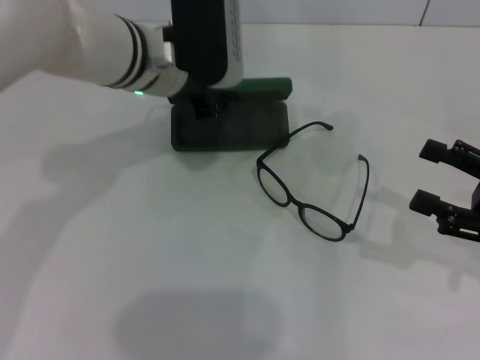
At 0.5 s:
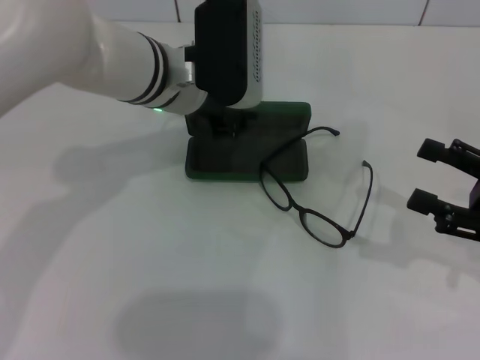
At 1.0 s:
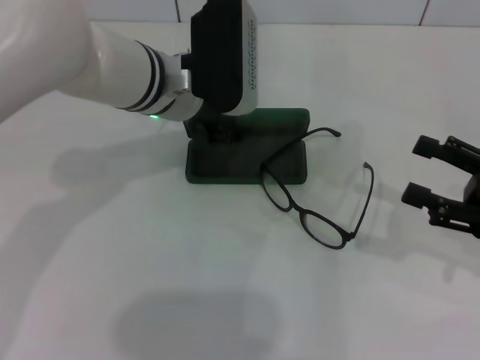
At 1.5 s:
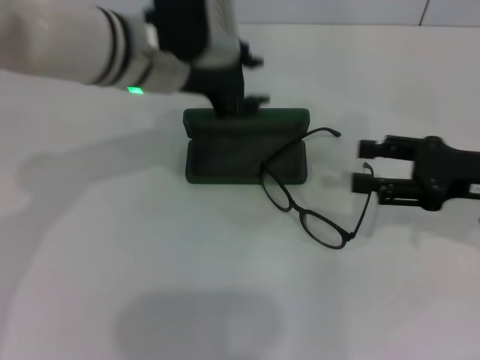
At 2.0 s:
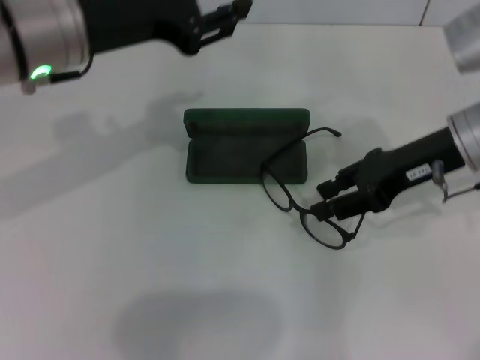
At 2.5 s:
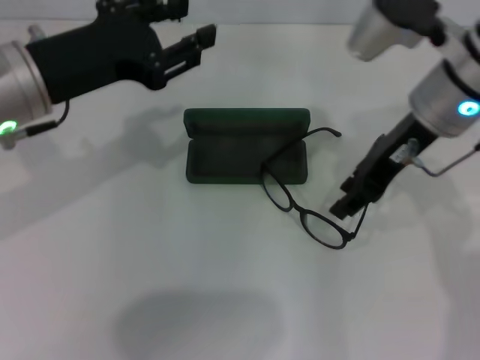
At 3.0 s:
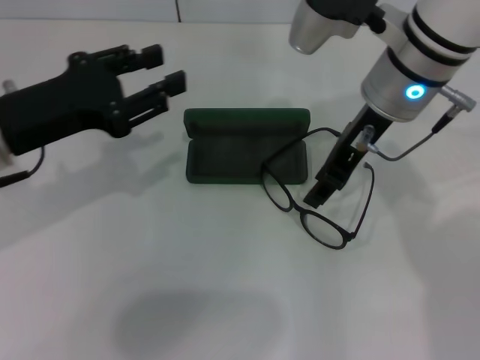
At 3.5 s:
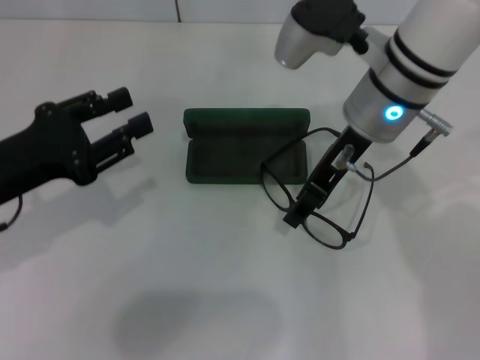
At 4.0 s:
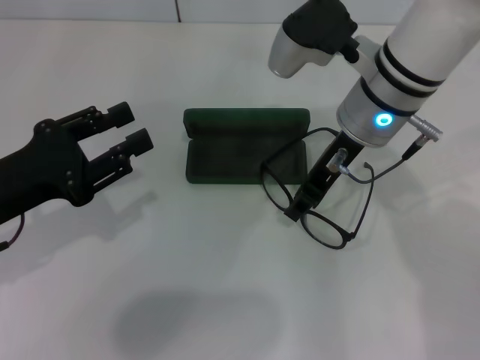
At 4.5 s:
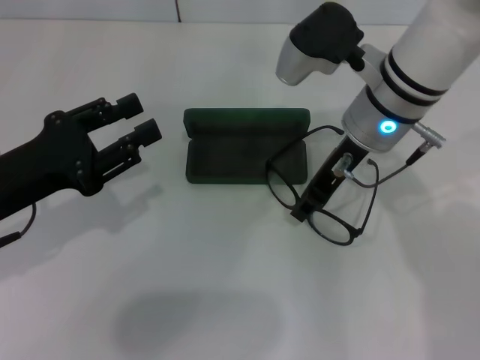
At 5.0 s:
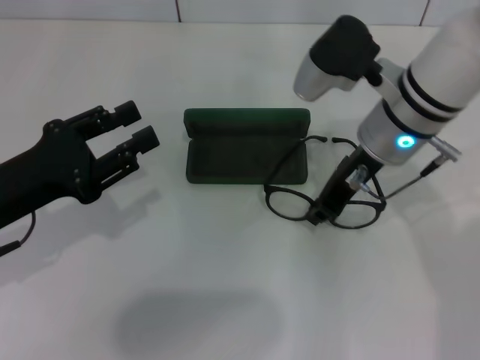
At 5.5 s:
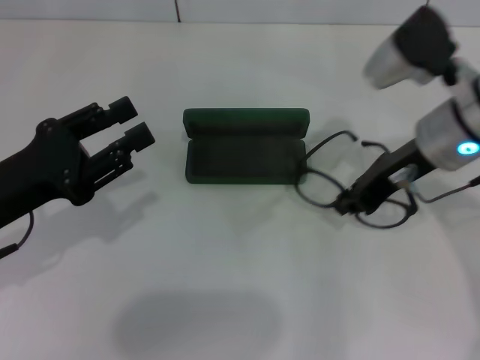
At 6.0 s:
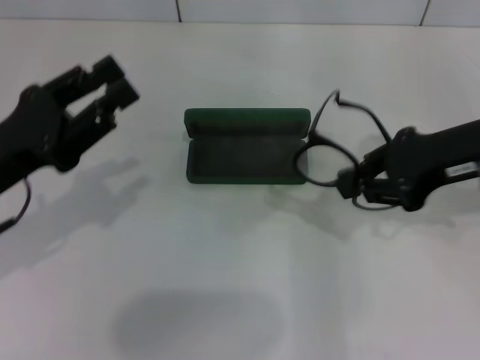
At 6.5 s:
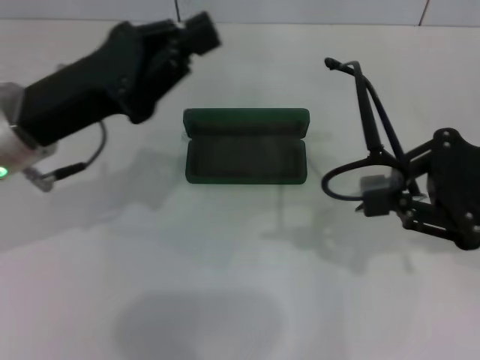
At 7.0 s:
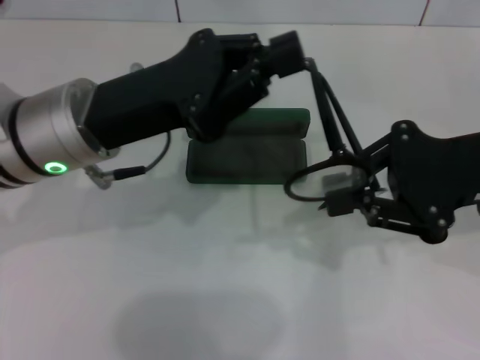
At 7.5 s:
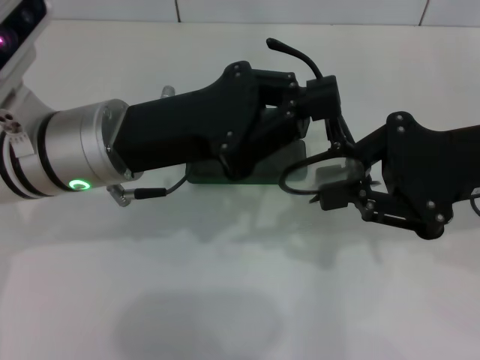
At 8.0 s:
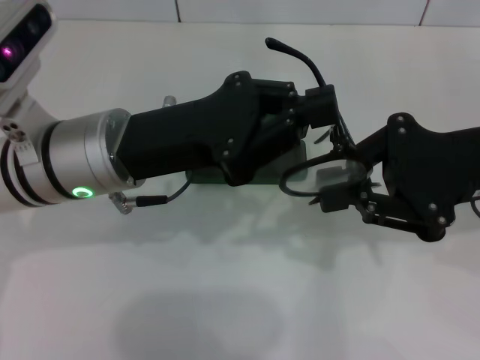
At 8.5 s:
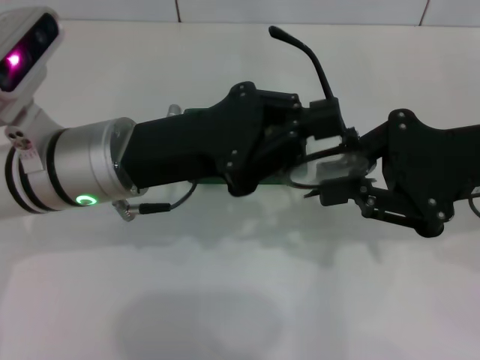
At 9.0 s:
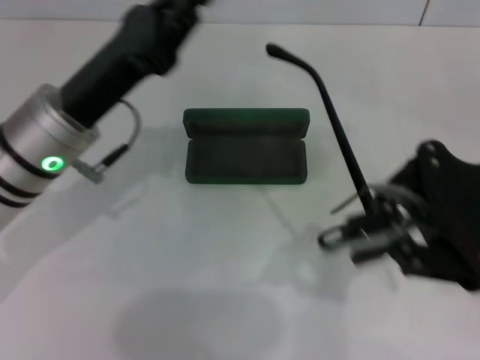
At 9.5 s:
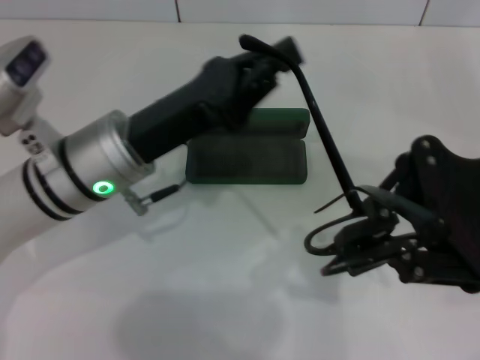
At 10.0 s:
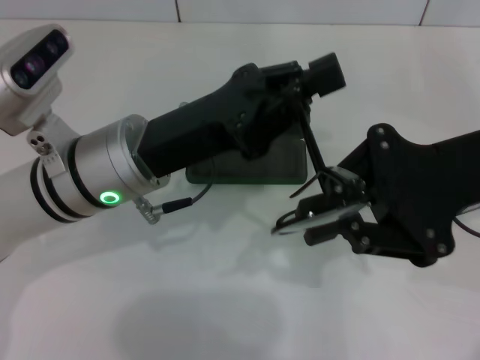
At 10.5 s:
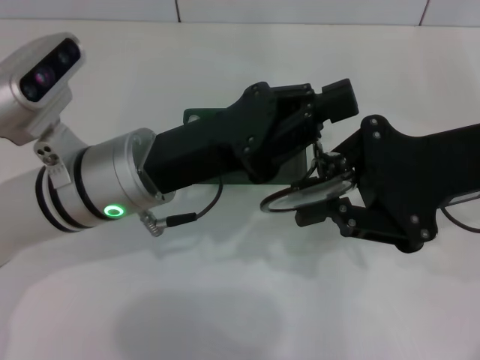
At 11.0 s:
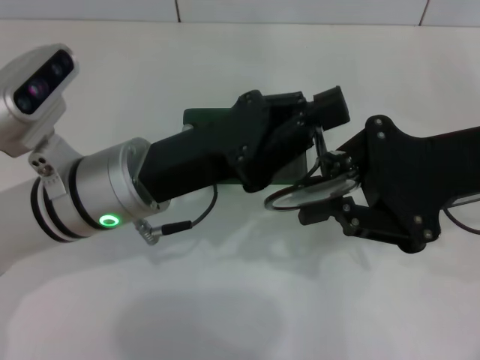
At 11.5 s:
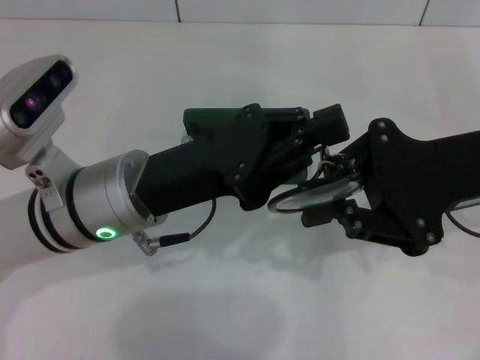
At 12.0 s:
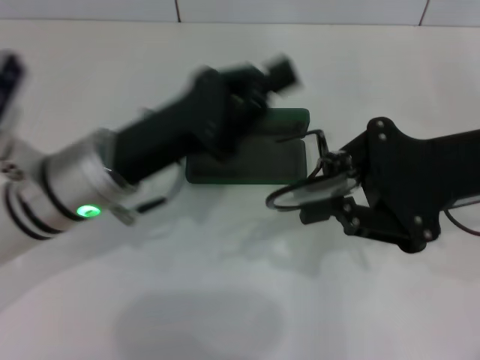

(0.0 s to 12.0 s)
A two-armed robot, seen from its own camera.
Step, 1.5 s - 4.5 s: Grab the eyeglass frame with your right hand.
Step, 5.0 s - 11.5 s: Fold the frame with your left hand.
0.0 s - 2.0 s: The left gripper travels to the left, backward and upward by approximately 10 cm, and opens up; the right gripper shifts some 20 cm to the left, forward and upward, and closes up.
2.0 s - 4.0 s: The right gripper goes roughly 10 cm to the left. The left gripper is displaced downward, to the left and backward by about 20 cm.
4.0 s - 6.0 s: The right gripper moves to the right and backward, approximately 15 cm.
6.0 s - 8.0 s: The left gripper travels to the right by some 10 cm, and closes.
10.0 s - 12.0 s: The grippers move only a little.

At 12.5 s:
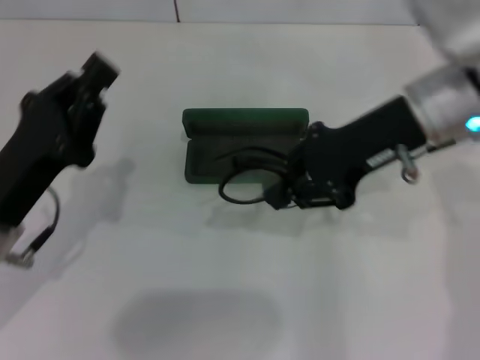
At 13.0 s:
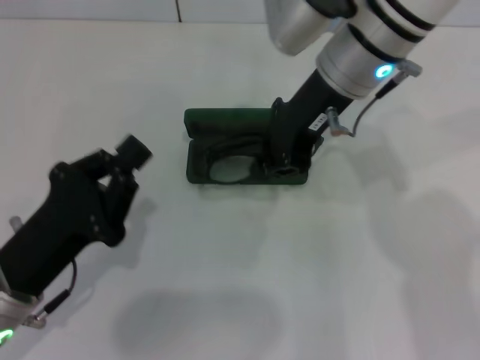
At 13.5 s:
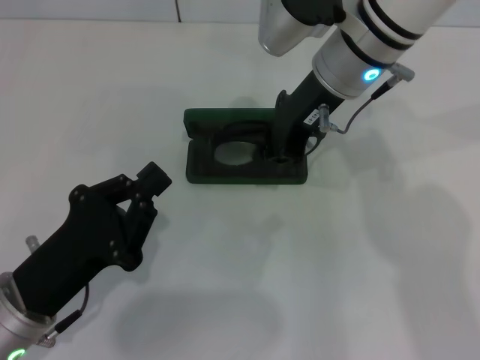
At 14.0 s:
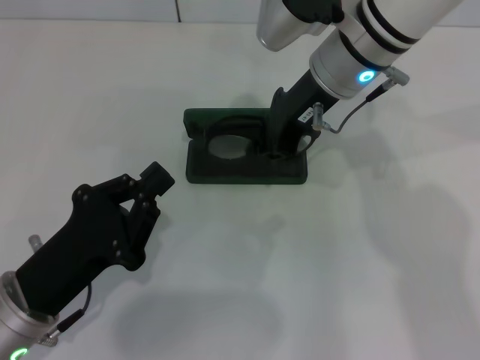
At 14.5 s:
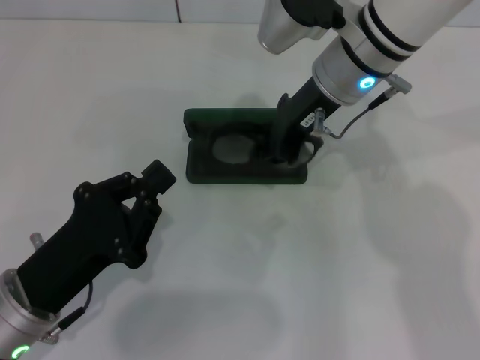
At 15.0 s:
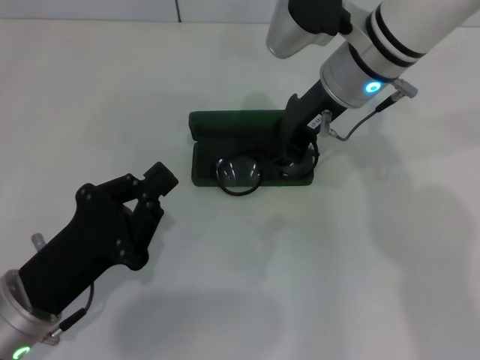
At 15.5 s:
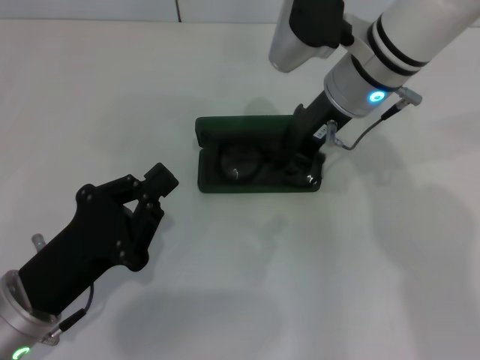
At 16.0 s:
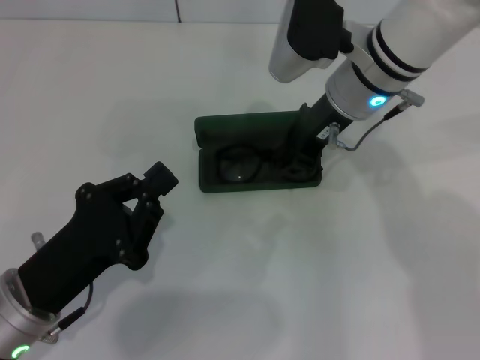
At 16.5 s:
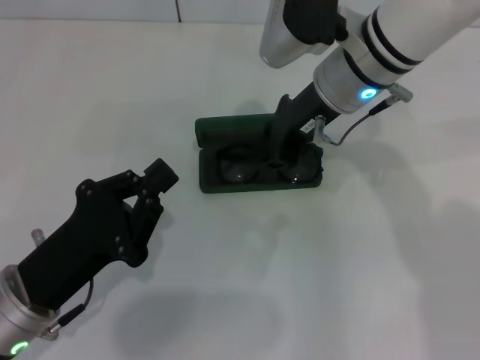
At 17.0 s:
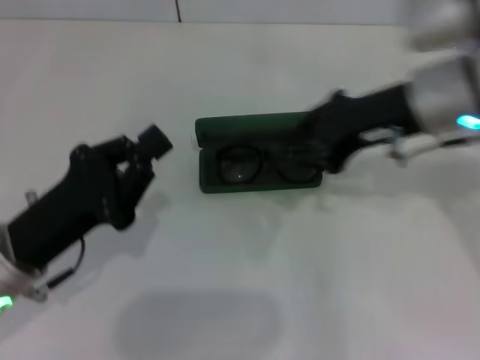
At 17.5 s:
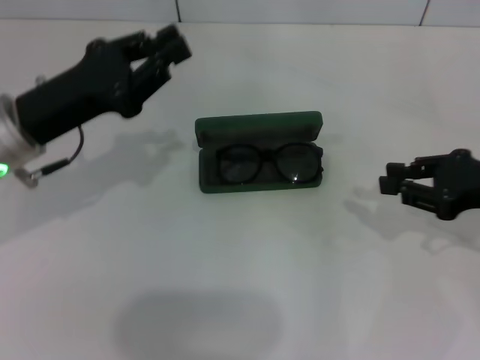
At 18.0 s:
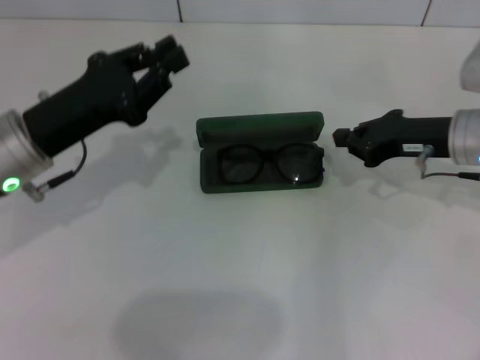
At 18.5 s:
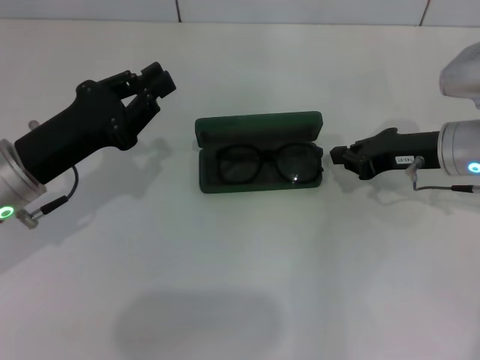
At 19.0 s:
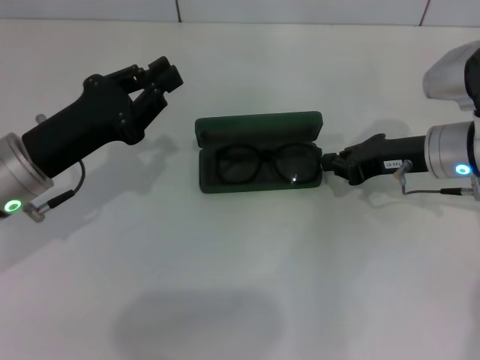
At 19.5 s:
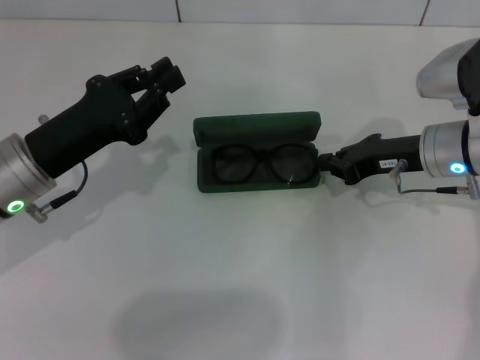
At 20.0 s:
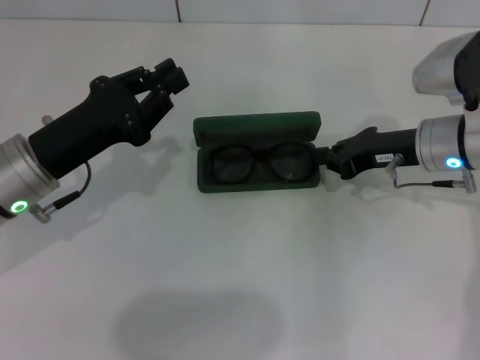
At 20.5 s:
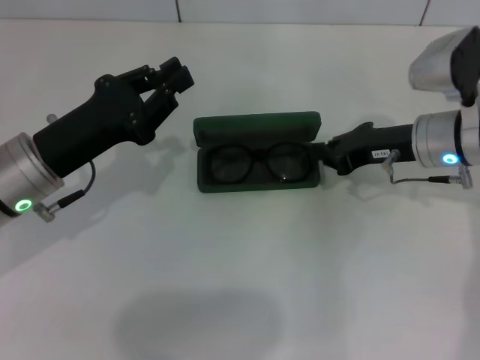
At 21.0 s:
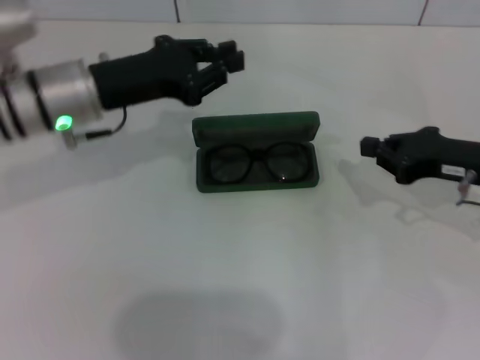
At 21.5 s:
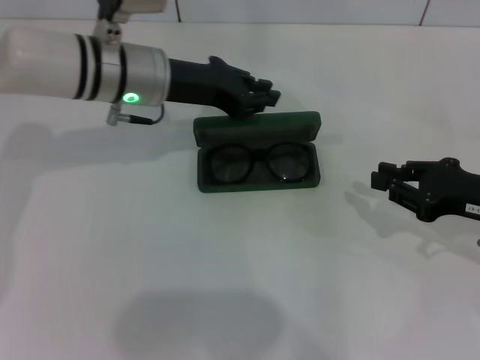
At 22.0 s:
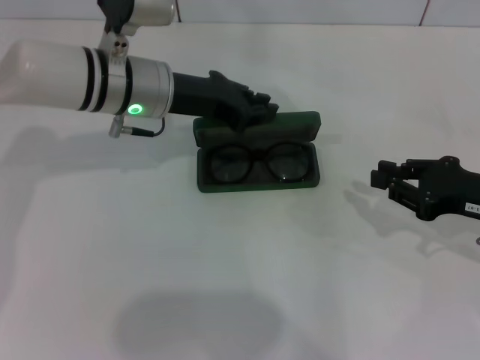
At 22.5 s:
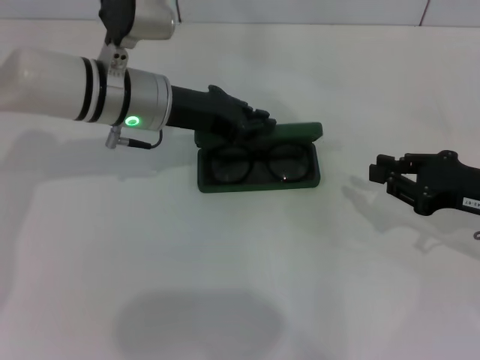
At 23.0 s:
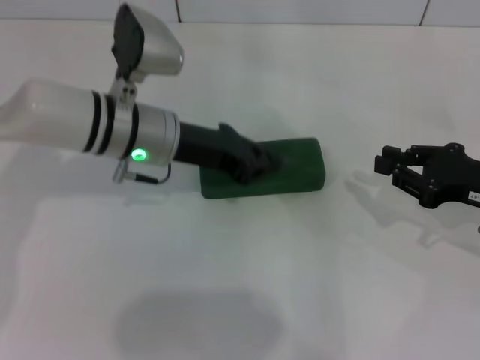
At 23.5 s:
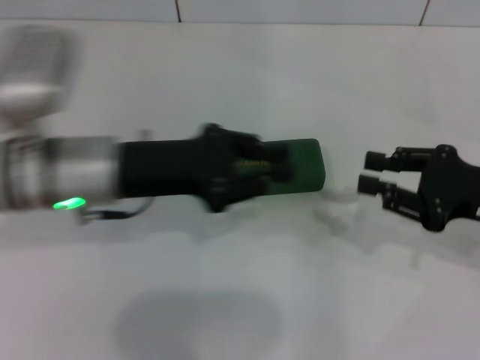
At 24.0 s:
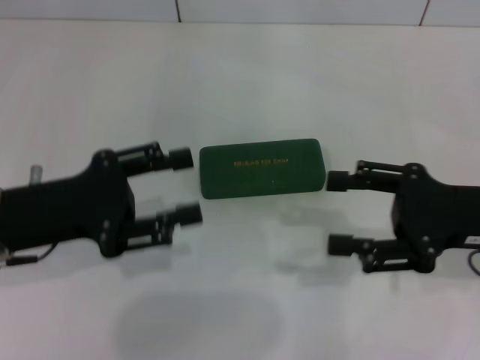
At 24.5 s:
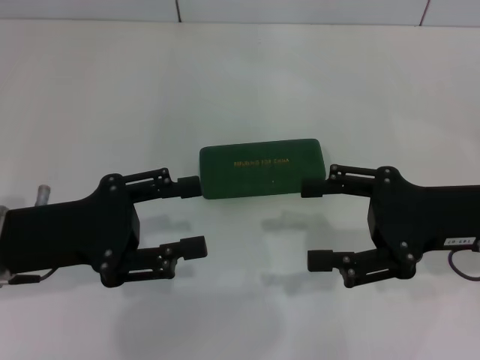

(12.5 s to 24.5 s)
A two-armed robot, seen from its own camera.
Step, 12.5 s - 20.5 s: Put the glasses into the case with your right hand.
Step, 21.0 s - 23.0 s: Close the glasses case with your left hand.
12.5 s - 14.5 s: The left gripper moves backward, approximately 5 cm. Meanwhile the right gripper goes approximately 10 cm to the left and forward.
14.5 s - 16.5 s: The grippers move only a little.
16.5 s - 18.5 s: The left gripper travels forward by some 10 cm. The right gripper travels to the right and downward by approximately 15 cm.
18.5 s - 20.5 s: There are only small adjustments of the grippers.
20.5 s - 22.5 s: The right gripper goes roughly 15 cm backward and to the right; the left gripper moves forward and to the right, some 15 cm.
22.5 s - 24.5 s: The right gripper is displaced to the left by roughly 5 cm, and opens up, while the left gripper is displaced backward and to the left by approximately 20 cm, and opens up.
